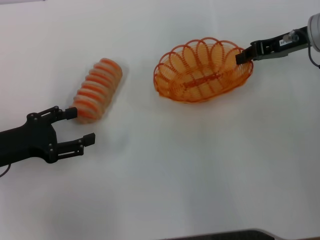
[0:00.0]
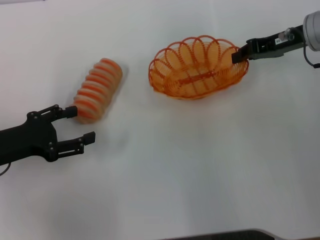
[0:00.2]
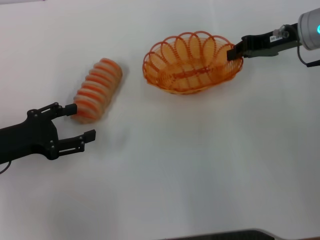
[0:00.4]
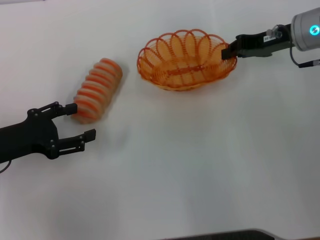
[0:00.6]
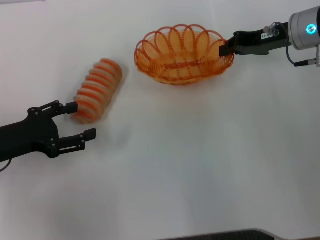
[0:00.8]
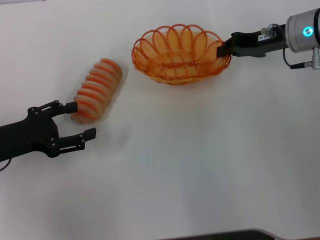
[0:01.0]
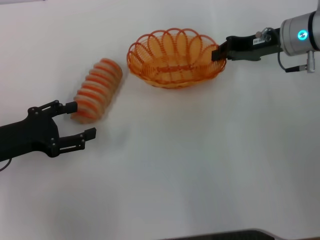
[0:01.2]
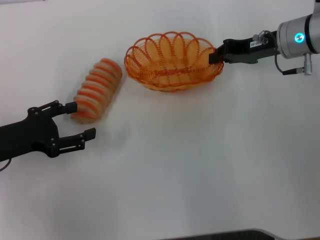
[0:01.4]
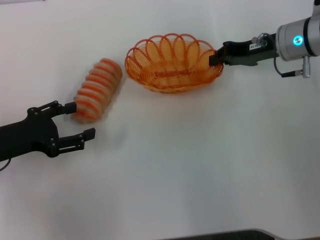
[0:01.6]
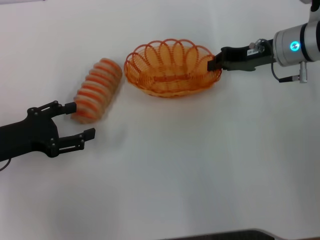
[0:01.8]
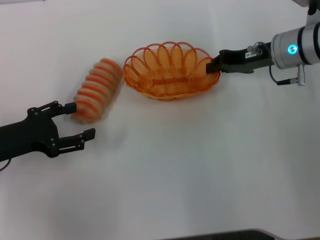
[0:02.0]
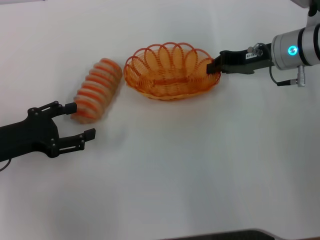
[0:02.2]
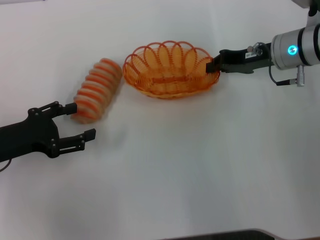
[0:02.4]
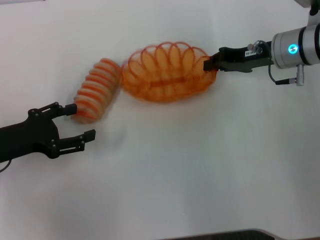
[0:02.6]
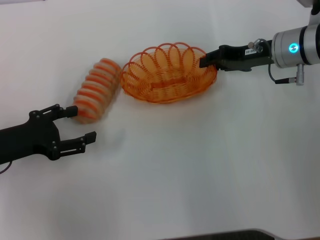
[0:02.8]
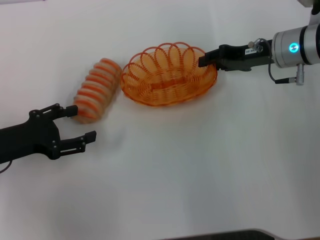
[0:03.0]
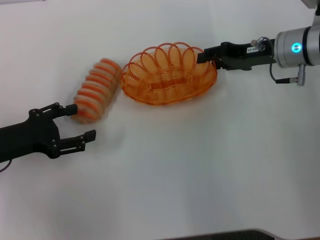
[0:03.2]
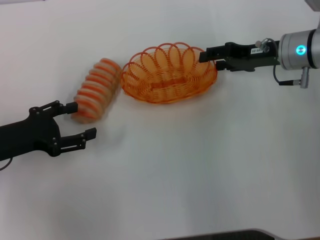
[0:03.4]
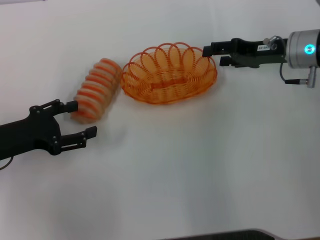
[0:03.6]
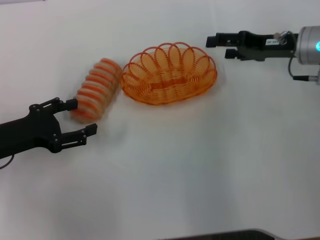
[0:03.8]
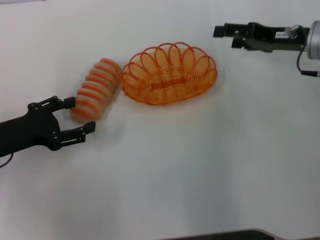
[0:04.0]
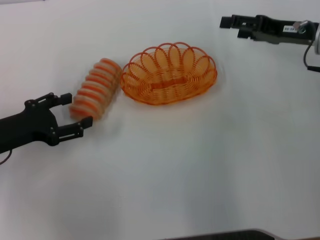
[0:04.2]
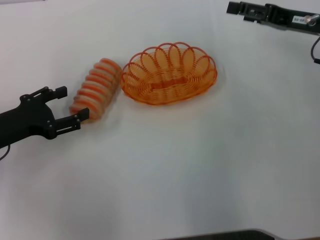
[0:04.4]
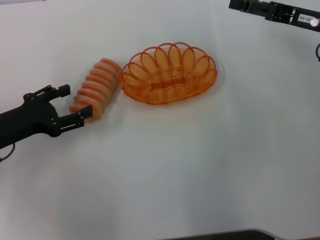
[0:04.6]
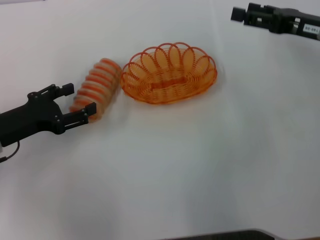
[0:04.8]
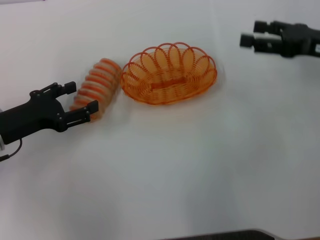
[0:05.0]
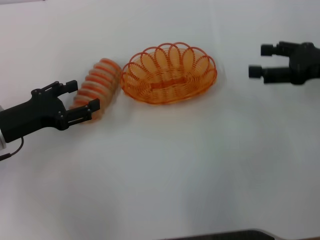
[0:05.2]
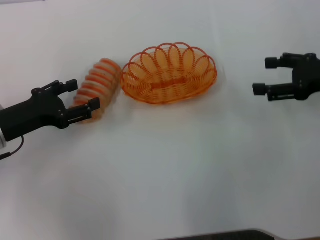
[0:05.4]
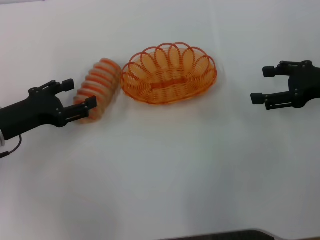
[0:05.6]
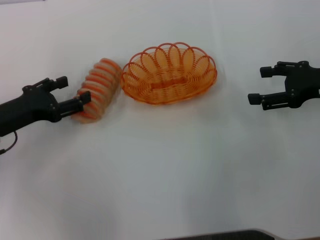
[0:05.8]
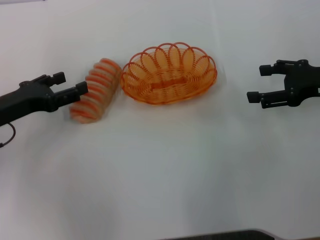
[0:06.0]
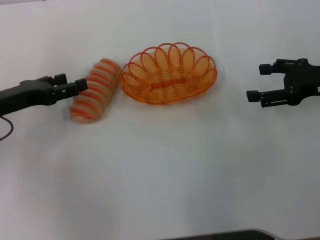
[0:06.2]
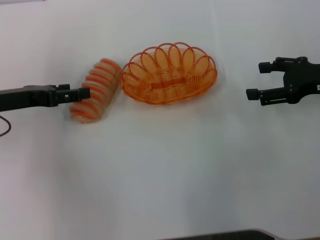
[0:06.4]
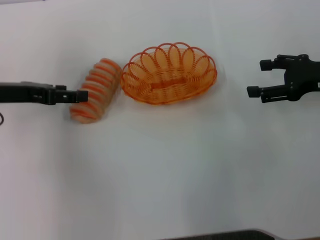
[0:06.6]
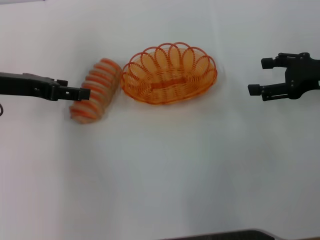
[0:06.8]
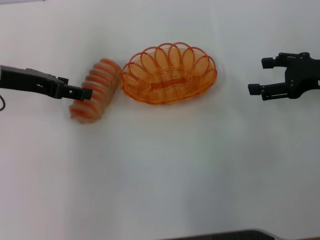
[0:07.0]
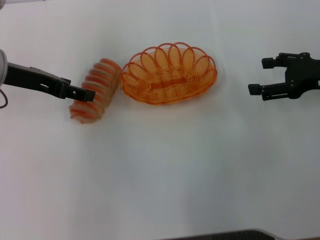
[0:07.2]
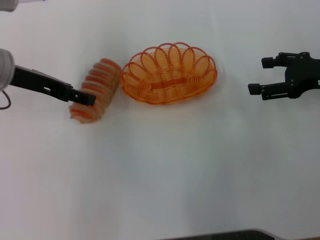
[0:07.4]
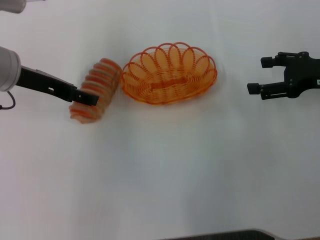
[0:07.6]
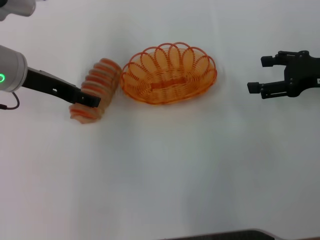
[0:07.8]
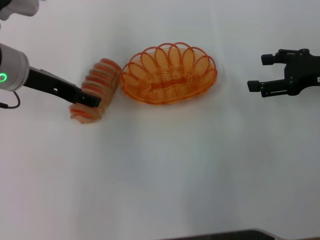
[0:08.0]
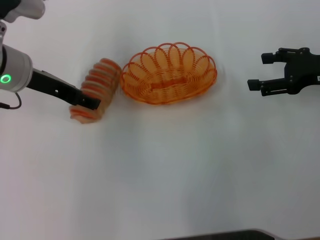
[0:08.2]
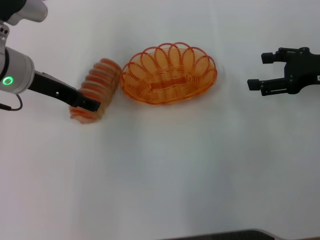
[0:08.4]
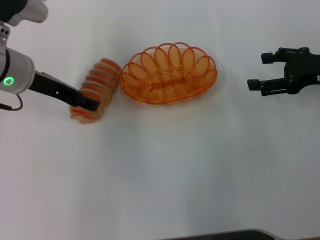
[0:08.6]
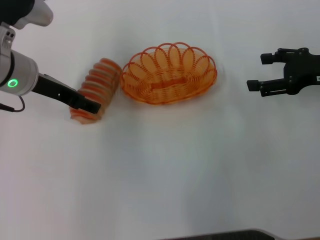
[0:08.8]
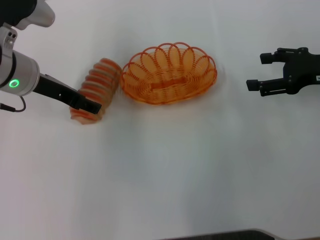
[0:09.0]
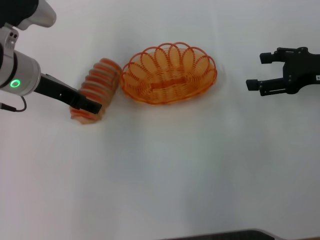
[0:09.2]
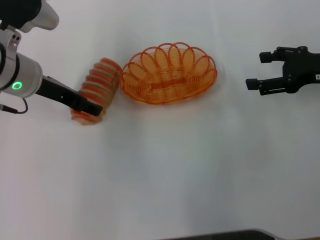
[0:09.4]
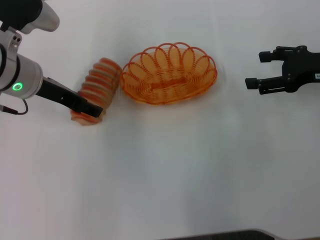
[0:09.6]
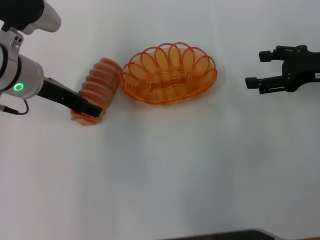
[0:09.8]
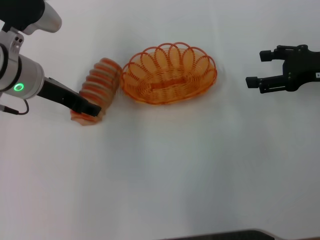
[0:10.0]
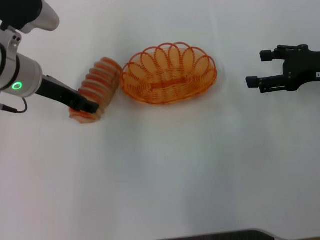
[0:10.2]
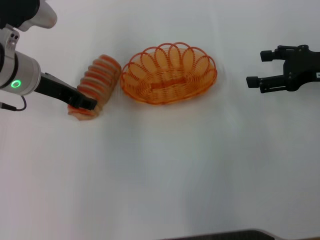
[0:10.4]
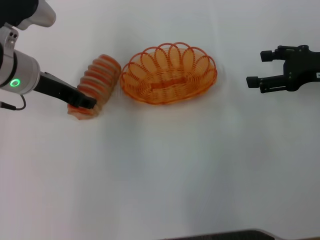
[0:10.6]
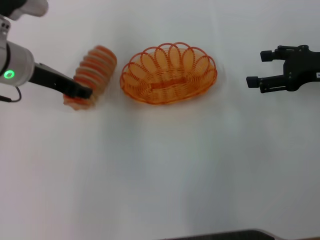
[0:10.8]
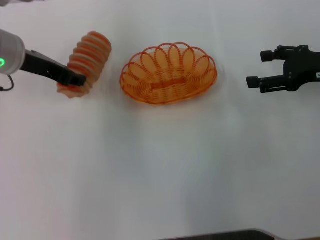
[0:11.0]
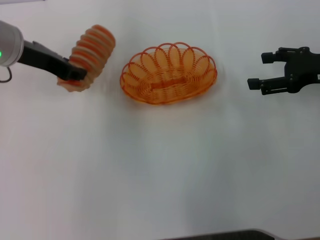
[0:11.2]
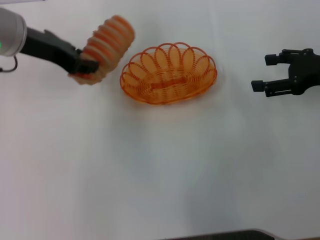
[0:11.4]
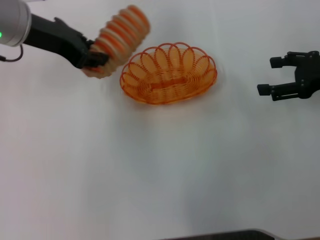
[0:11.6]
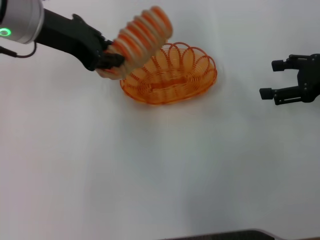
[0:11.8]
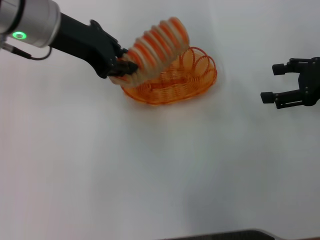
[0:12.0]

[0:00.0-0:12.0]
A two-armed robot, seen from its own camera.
Step, 1.2 to 3.8 s: Place the basket in the center of view with the right gripper.
Step, 4.2 to 11.0 s: Pick up the long bread with the left gripper.
0.0 to 1.6 s: The grippers stay close to where they were, moving slightly.
1.6 to 3.0 s: Both grippers stay about where they are.
3.0 to 4.4 s: The right gripper shifts some 5 cm to the right, and opens up.
4.4 to 6.0 s: The right gripper shifts about 5 cm backward.
6.0 to 7.6 s: The left gripper heads upward, to the right and forward, covering some 10 cm.
7.6 to 9.0 s: The grippers move only a little.
9.0 to 10.4 s: The left gripper closes up.
10.4 to 12.0 s: The left gripper travels upward by about 10 cm, and closes up.

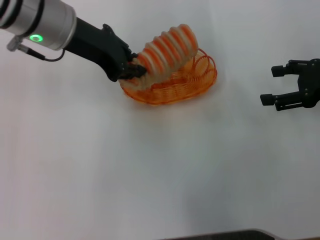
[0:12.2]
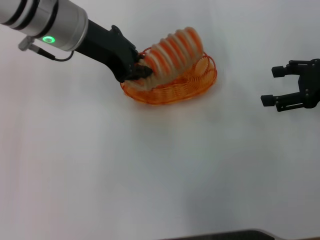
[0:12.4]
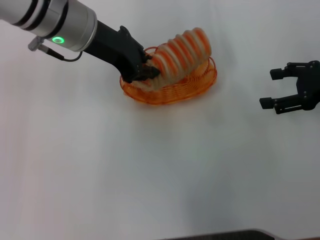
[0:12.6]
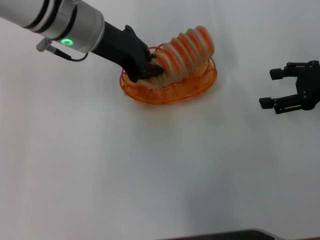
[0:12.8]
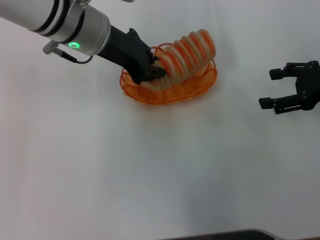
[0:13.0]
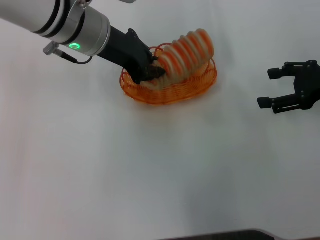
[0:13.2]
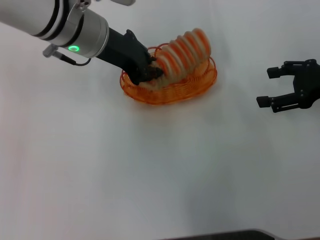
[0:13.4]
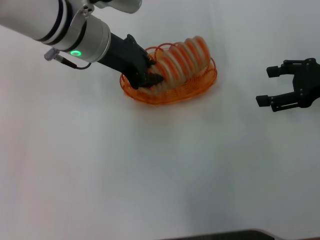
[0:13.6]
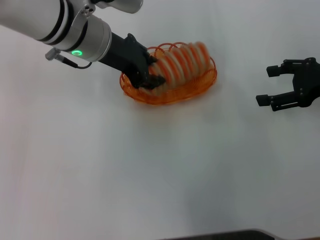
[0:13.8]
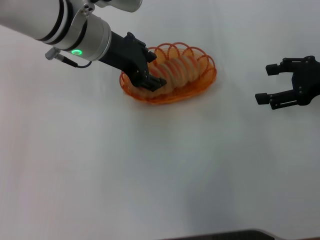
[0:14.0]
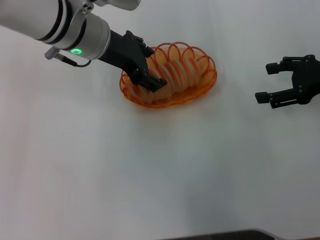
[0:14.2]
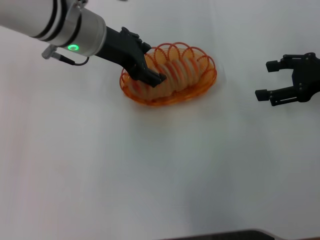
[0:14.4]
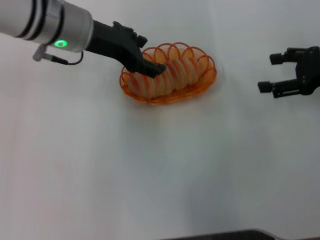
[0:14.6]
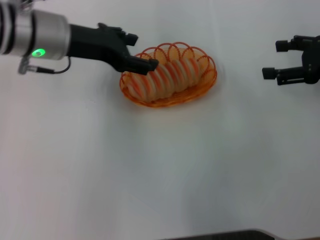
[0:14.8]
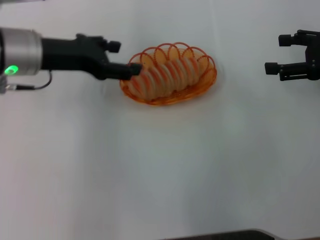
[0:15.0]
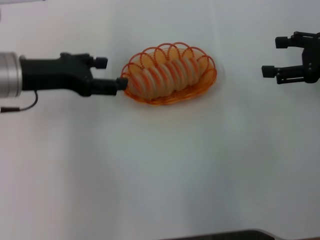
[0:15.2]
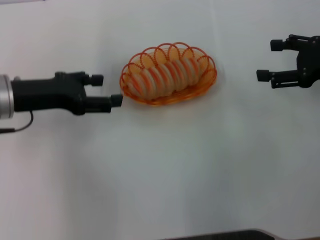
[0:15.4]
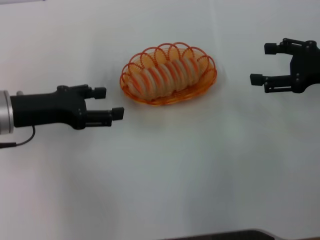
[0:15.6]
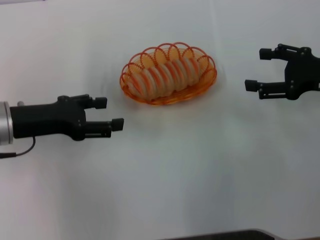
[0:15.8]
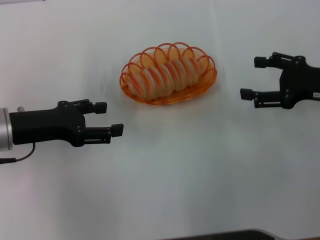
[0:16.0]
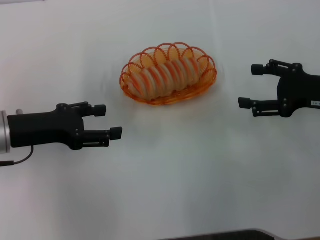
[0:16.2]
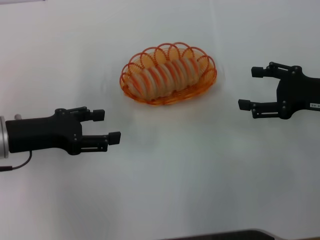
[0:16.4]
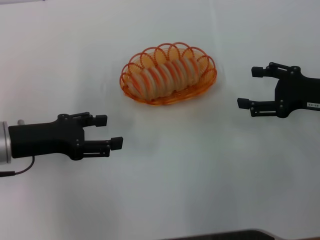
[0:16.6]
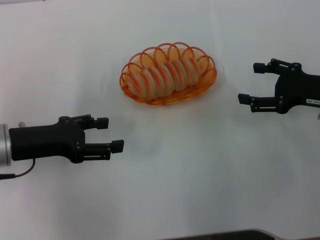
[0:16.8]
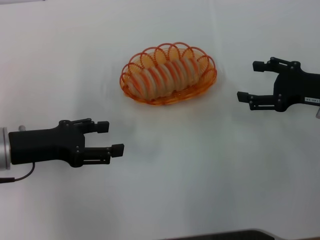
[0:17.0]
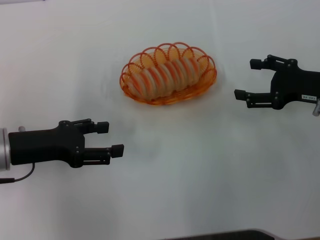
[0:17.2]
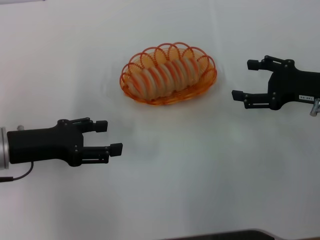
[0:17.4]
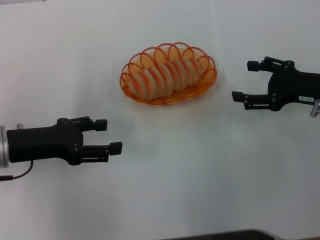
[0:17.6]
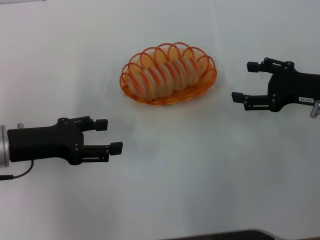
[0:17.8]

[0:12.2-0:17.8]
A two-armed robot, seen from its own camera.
Step, 12.2 to 15.0 s: Place the long bread into the basket with the left gripper.
12.2 to 13.6 s: The left gripper changes place by approximately 5 cm.
13.6 to 15.0 s: The left gripper shifts approximately 10 cm to the left, and opens its fingers.
15.0 to 16.4 s: The right gripper travels downward by roughly 5 cm; the left gripper shifts about 10 cm backward, downward and to the left.
16.4 to 17.8 s: The grippers stay close to where they were, moving slightly.

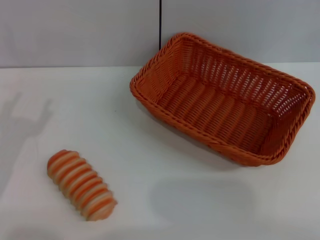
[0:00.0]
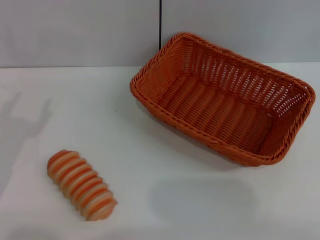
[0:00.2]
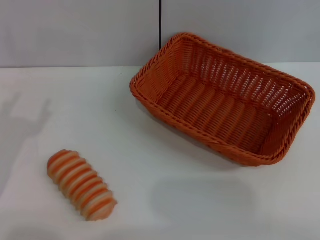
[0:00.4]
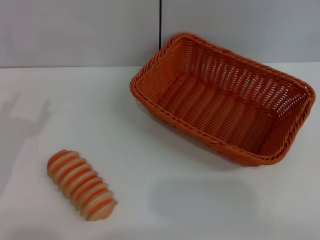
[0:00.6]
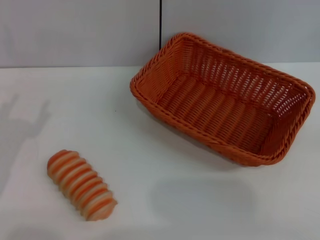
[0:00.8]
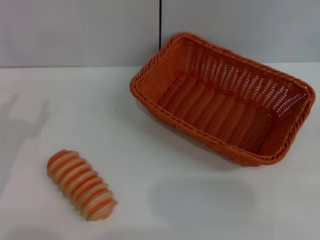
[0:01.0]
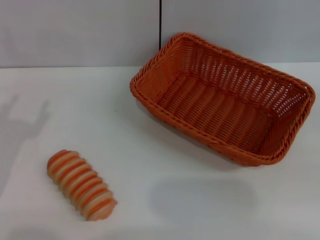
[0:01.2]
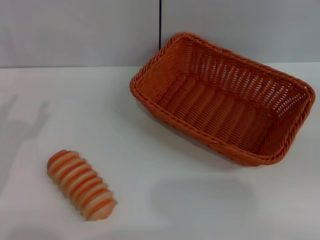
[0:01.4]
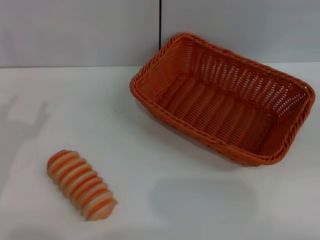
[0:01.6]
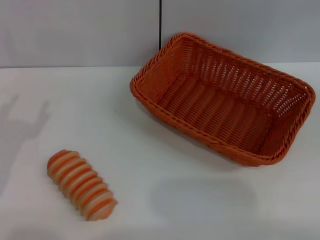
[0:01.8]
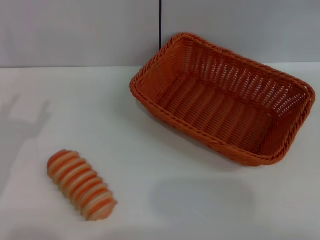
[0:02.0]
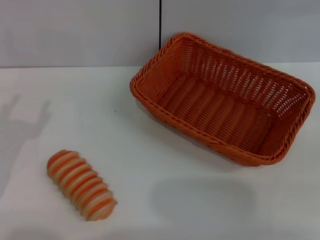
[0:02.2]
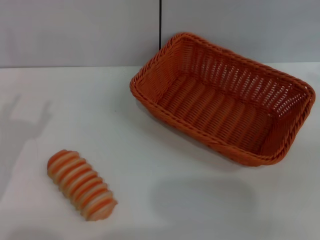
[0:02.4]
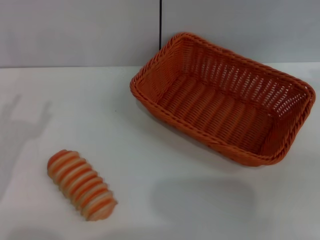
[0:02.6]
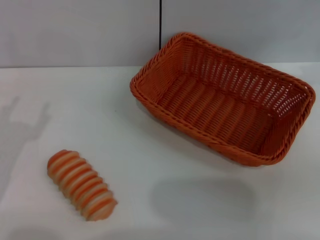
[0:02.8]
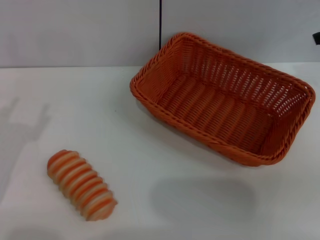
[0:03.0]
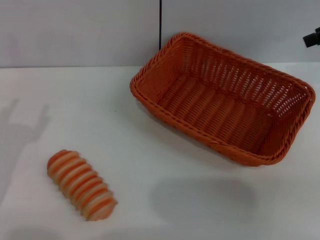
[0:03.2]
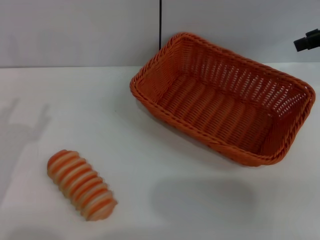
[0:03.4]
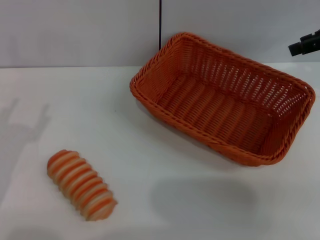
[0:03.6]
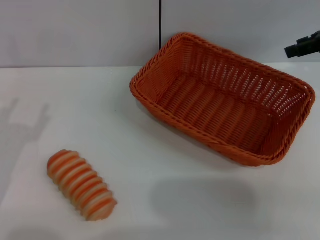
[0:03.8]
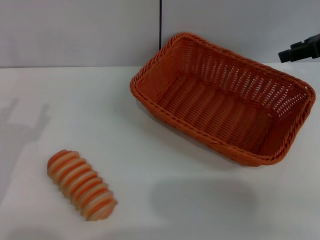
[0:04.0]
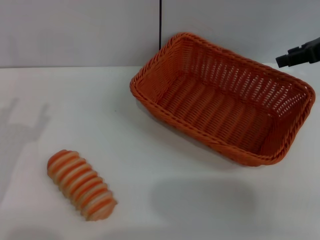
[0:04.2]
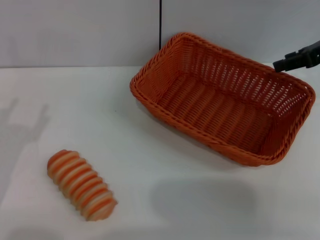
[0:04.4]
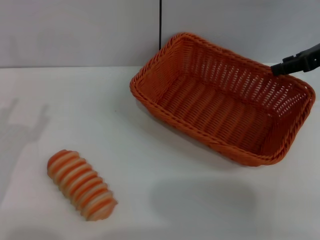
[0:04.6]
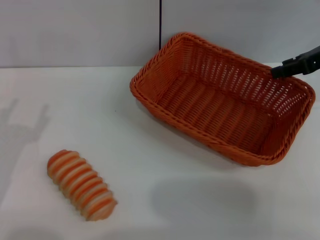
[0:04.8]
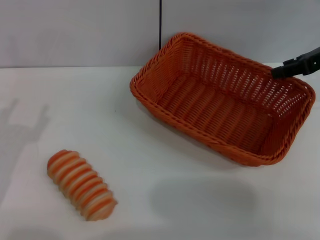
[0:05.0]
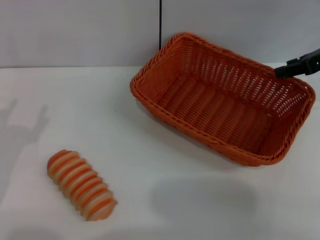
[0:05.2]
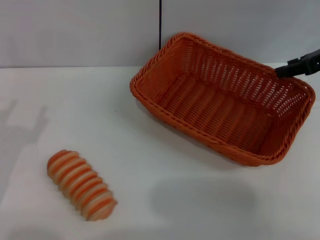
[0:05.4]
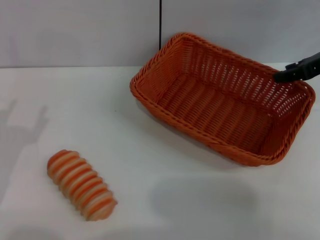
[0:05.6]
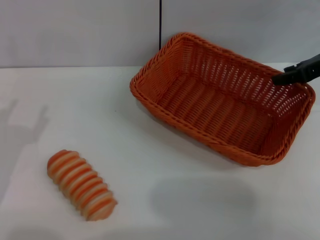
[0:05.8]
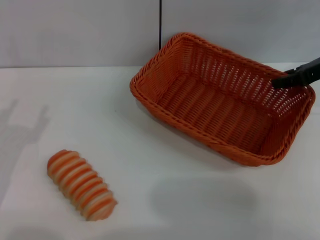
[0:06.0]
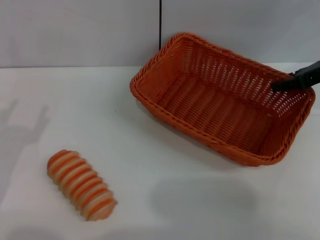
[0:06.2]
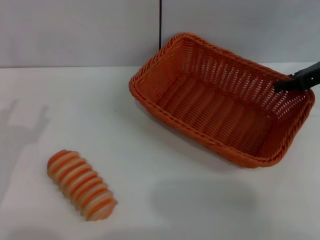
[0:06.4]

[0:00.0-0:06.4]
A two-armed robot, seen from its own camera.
0.0 to 1.6 s: The right gripper goes roughly 25 cm upward and forward.
1.6 to 3.2 s: The right gripper travels to the left and forward by some 20 cm.
3.2 to 4.8 s: The right gripper moves downward, approximately 5 cm.
4.8 to 6.4 s: The grippers make only small movements.
